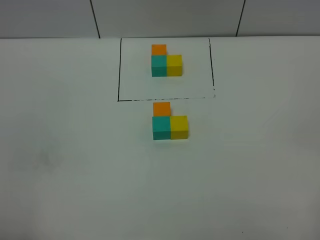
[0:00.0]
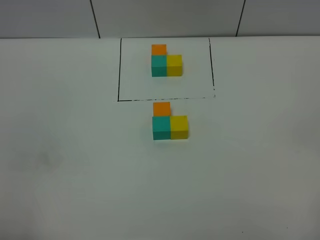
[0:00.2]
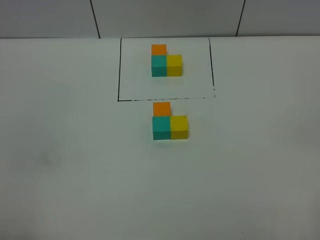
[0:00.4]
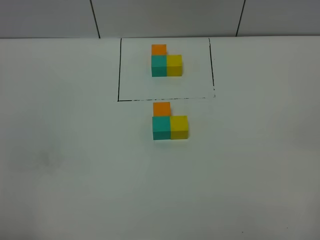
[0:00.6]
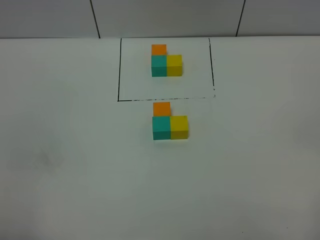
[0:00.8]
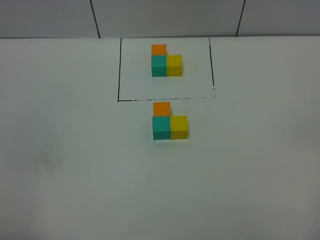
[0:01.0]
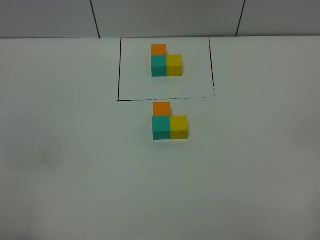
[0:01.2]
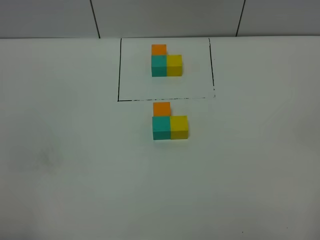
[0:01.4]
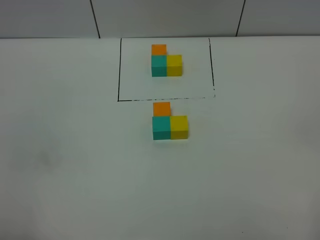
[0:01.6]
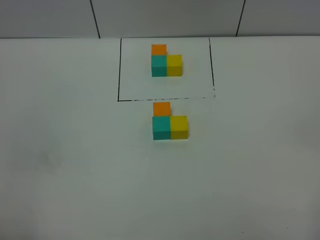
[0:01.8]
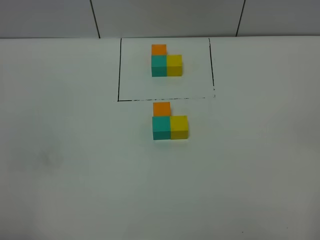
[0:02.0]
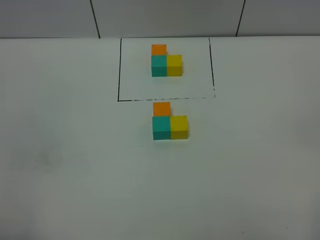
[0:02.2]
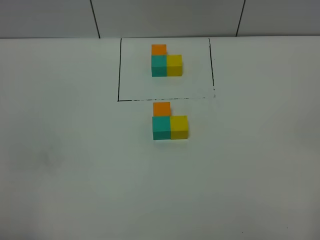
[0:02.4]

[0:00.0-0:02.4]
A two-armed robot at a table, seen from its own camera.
Task of the whole recording: According to the building block template in front, assemble the scattered blocks together.
0:01.2 to 0:02.4: Neither gripper changes place.

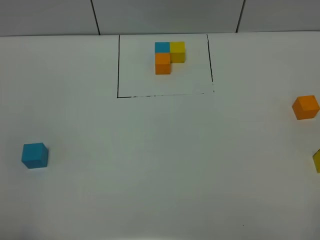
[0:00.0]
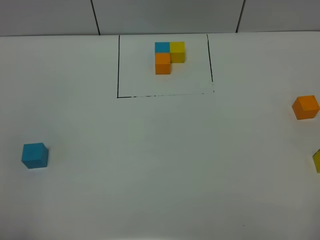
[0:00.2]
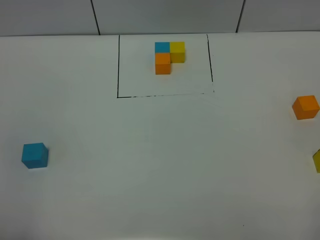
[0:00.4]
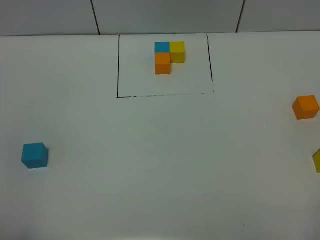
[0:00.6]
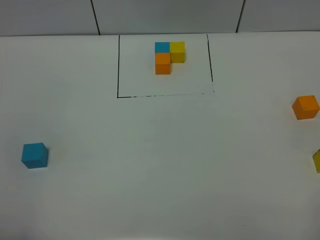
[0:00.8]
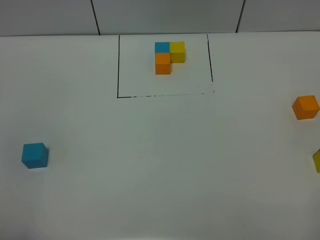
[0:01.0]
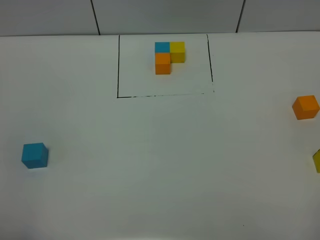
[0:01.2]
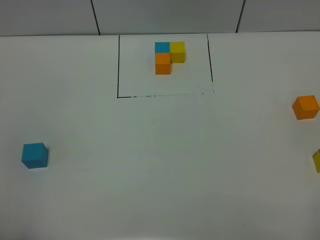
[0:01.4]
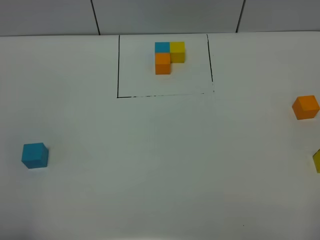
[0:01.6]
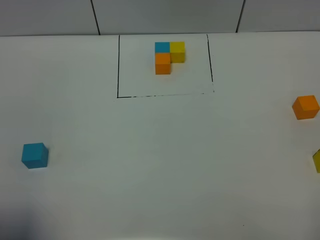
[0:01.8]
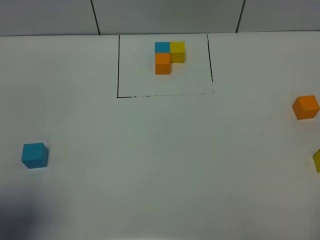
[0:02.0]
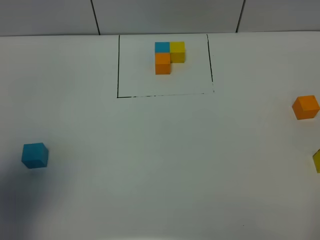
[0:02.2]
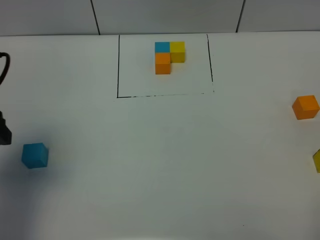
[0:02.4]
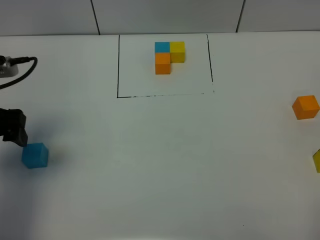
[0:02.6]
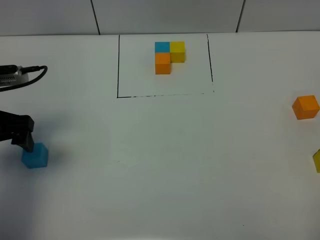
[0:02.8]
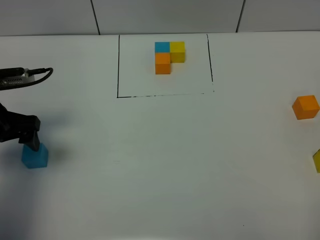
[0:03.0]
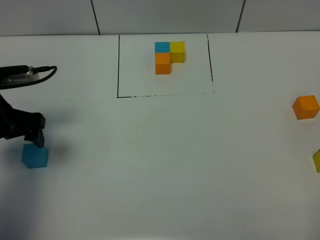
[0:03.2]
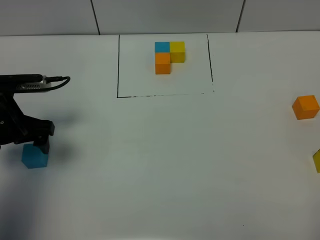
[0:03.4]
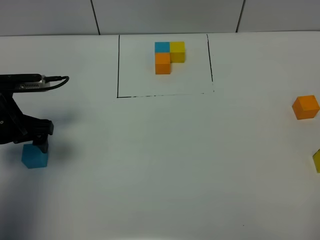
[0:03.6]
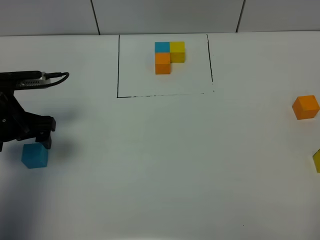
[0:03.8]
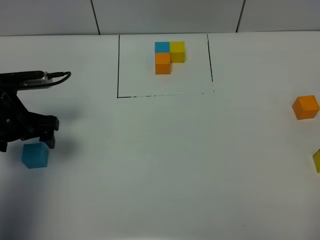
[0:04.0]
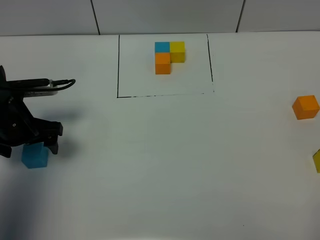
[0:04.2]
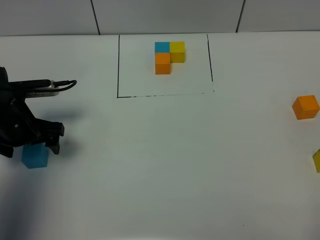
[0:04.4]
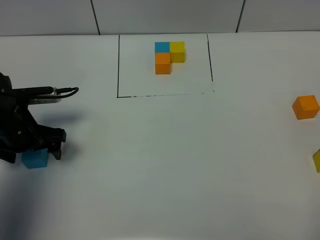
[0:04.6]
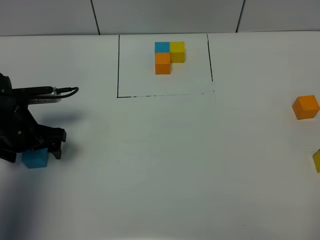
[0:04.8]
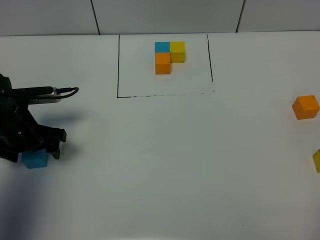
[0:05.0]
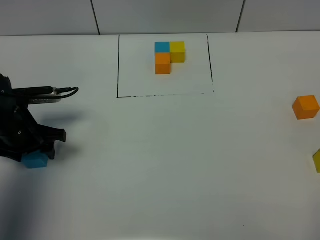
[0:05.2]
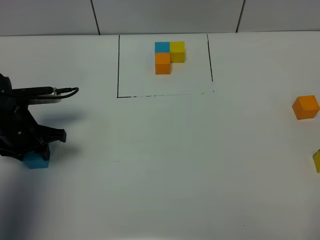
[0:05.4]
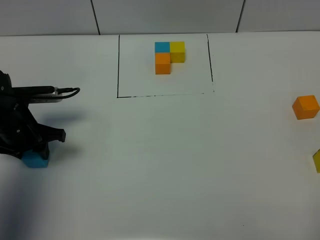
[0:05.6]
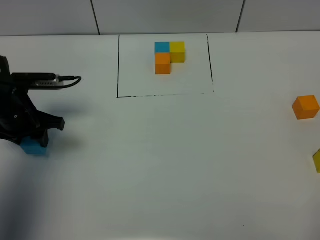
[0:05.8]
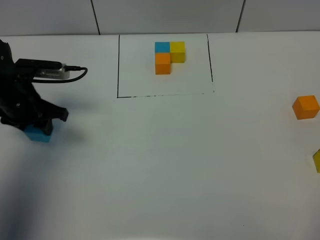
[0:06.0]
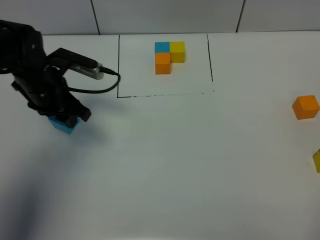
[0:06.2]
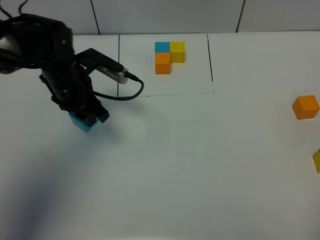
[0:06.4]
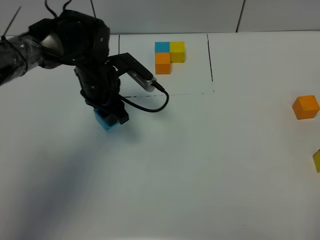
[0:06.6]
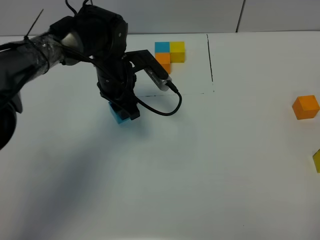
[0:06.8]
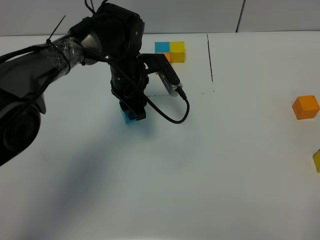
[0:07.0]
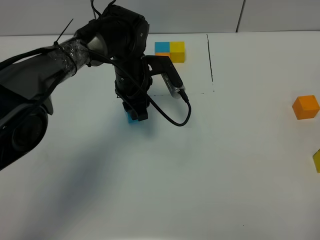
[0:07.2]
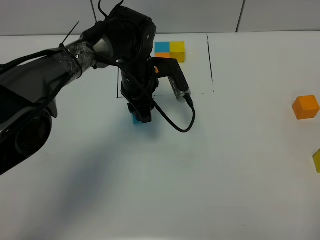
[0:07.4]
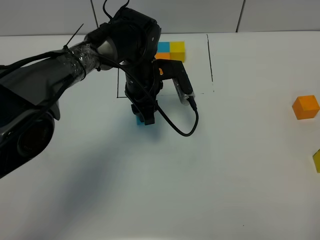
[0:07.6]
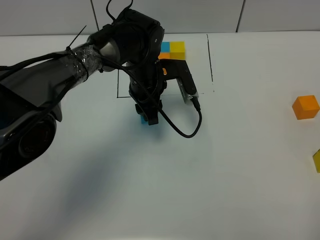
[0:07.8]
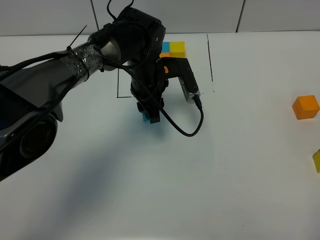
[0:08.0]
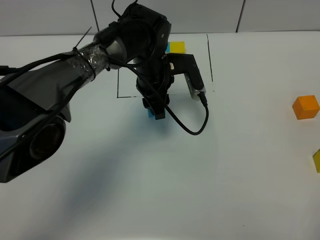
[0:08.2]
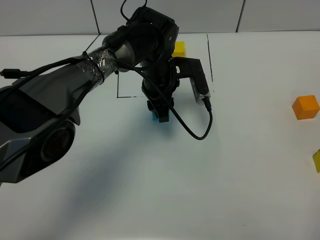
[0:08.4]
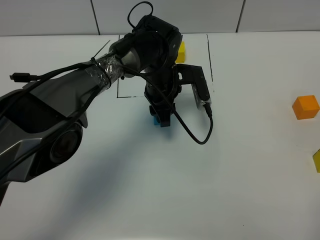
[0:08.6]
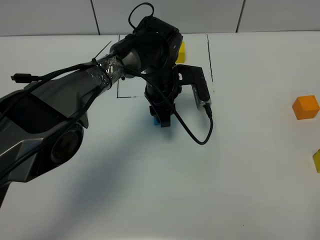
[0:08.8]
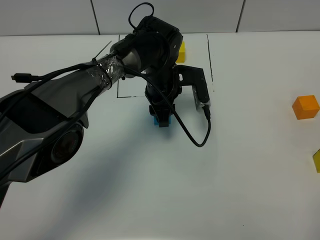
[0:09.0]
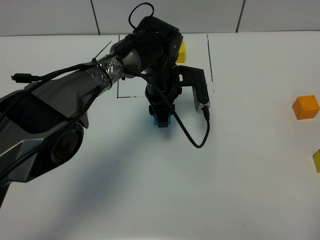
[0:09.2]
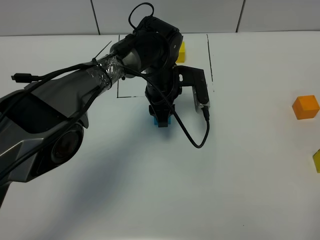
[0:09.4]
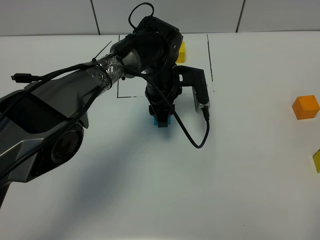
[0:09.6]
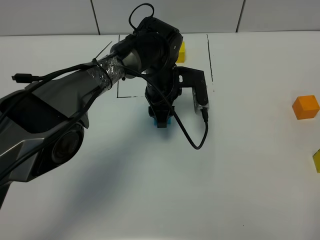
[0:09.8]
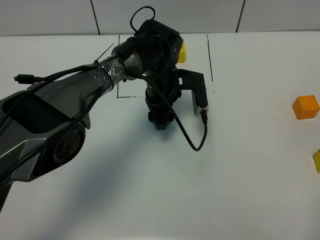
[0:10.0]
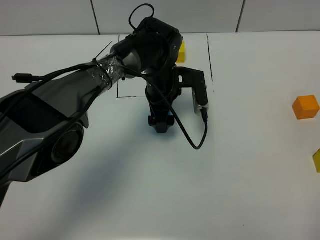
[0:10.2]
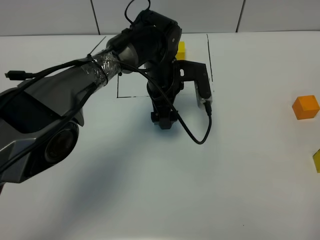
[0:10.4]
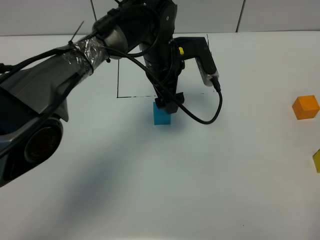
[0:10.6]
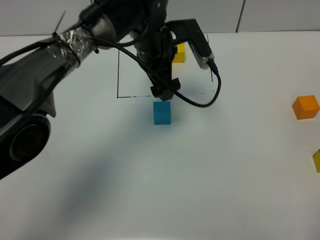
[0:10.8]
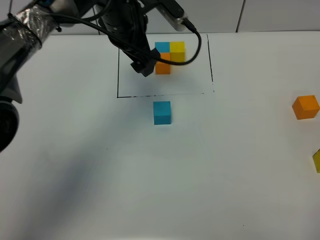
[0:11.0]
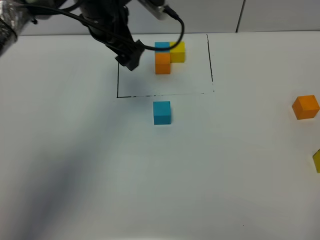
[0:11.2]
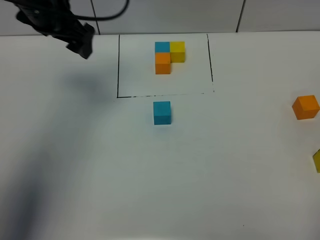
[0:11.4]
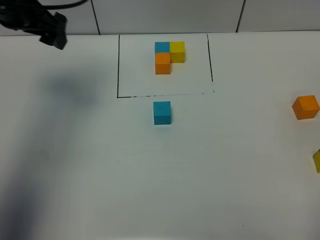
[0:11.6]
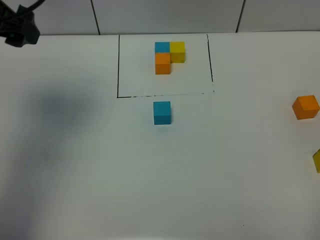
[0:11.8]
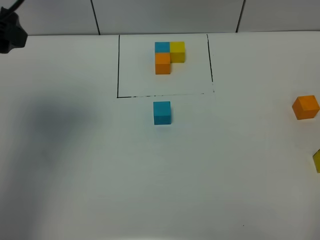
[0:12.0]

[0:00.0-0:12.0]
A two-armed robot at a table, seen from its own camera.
Task of the whole recording: According to the building block template in front, assemble the scattered blocks together.
Step, 0:00.0 to 0:09.8: Put the blue build block in the center of the table.
0:00.0 to 0:01.6: The two grippers keep their place.
0:01.6 to 0:03.0: The left gripper is displaced forward by about 30 cm.
0:03.0 to 0:04.4: The left gripper travels downward by about 5 cm.
0:04.4 to 0:06.0: The left gripper moves some 5 cm, and closes.
0:06.0 to 0:07.6: The left gripper goes about 20 cm to the right.
0:09.0 to 0:10.4: The left gripper opens up.
0:10.4 to 0:12.0: The left gripper shifts approximately 40 cm to the left, upward and backward.

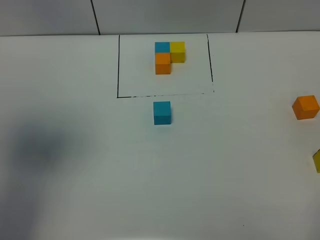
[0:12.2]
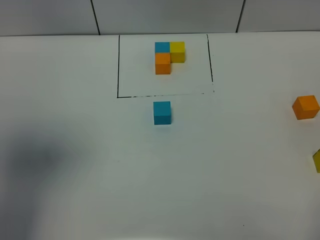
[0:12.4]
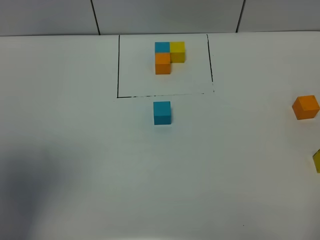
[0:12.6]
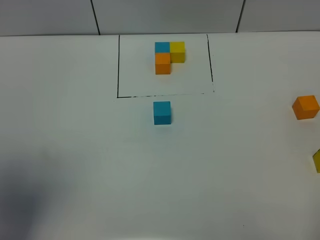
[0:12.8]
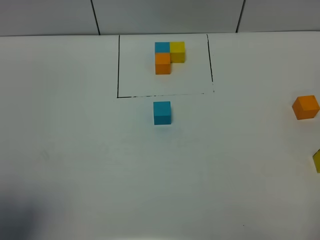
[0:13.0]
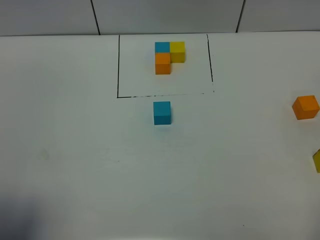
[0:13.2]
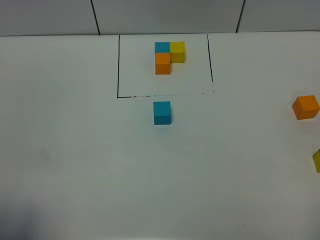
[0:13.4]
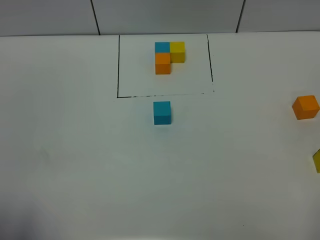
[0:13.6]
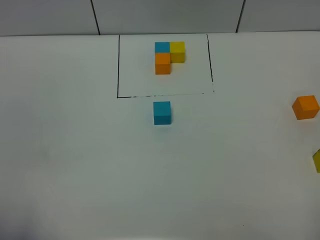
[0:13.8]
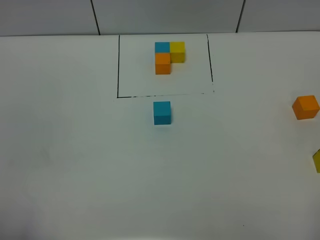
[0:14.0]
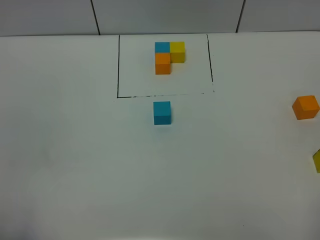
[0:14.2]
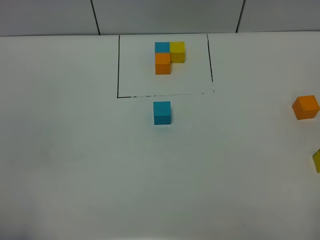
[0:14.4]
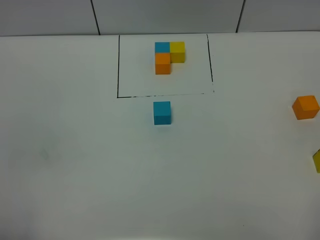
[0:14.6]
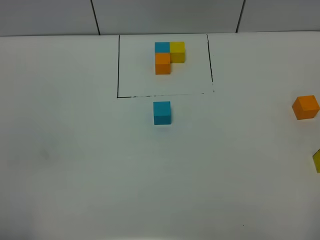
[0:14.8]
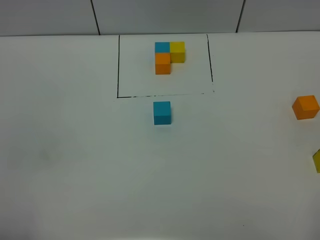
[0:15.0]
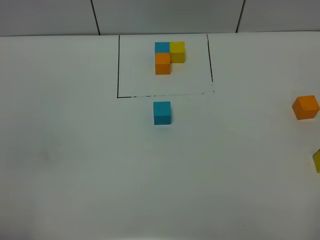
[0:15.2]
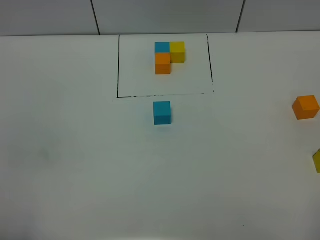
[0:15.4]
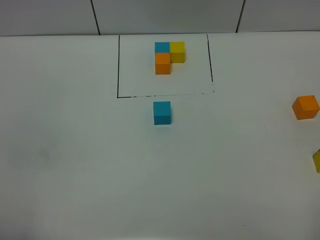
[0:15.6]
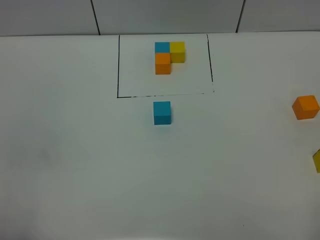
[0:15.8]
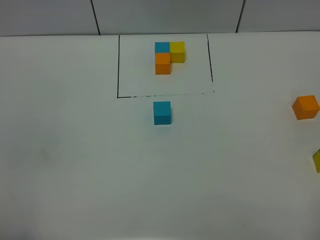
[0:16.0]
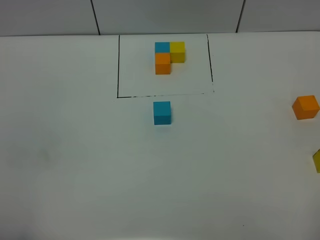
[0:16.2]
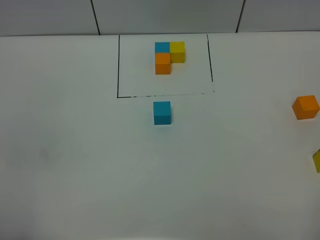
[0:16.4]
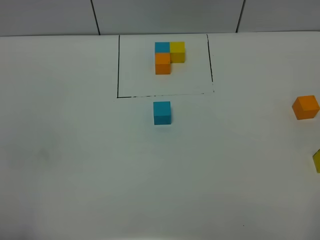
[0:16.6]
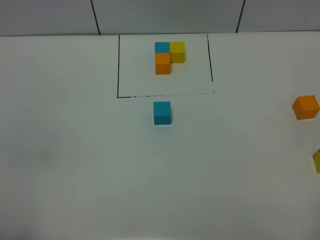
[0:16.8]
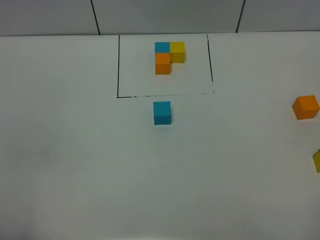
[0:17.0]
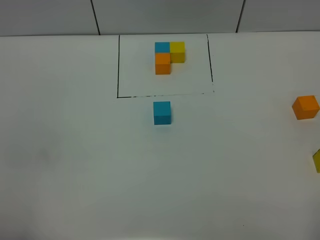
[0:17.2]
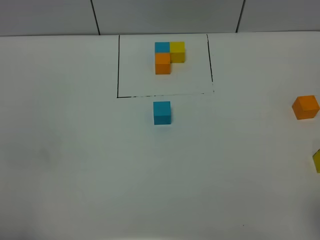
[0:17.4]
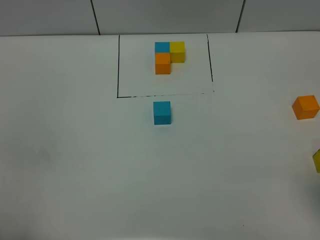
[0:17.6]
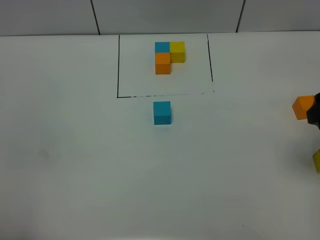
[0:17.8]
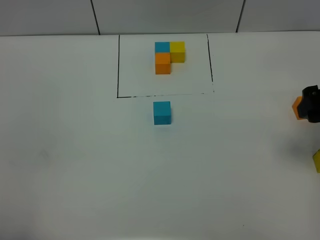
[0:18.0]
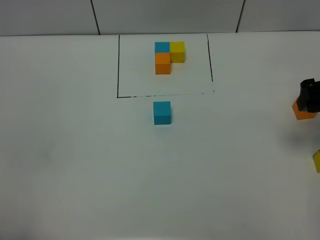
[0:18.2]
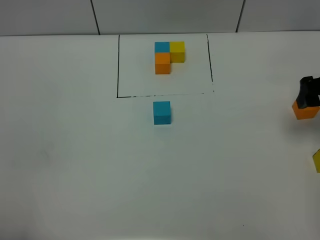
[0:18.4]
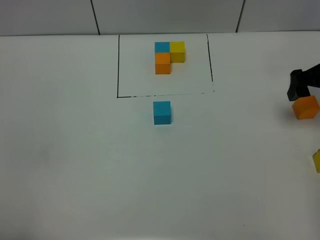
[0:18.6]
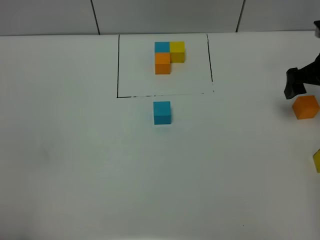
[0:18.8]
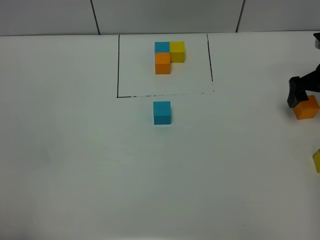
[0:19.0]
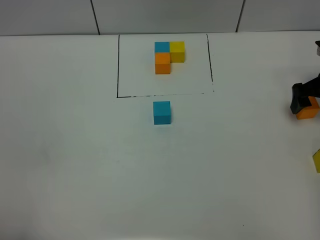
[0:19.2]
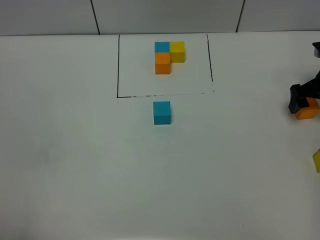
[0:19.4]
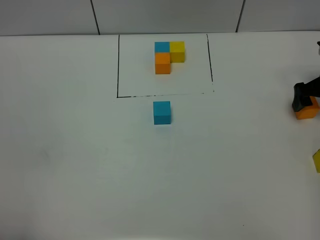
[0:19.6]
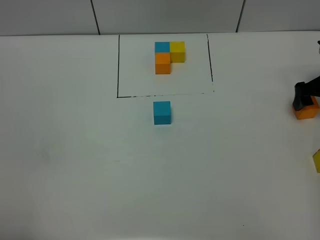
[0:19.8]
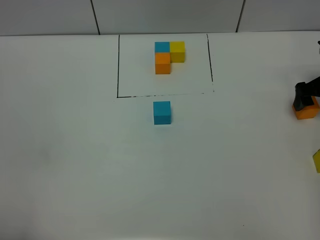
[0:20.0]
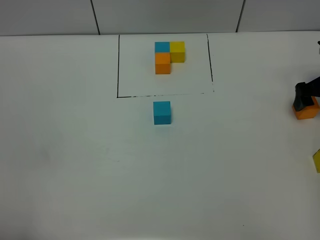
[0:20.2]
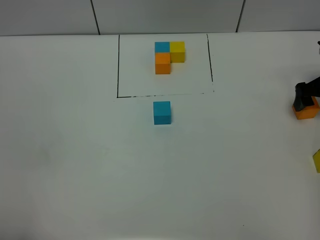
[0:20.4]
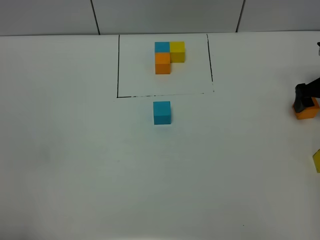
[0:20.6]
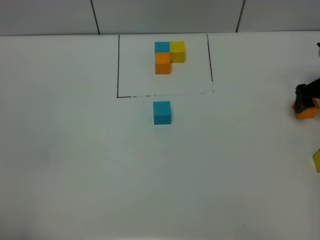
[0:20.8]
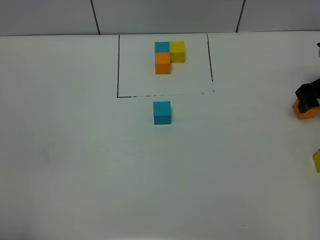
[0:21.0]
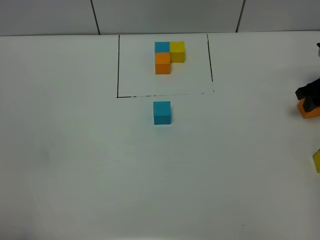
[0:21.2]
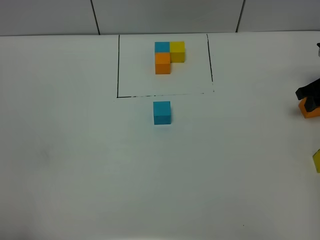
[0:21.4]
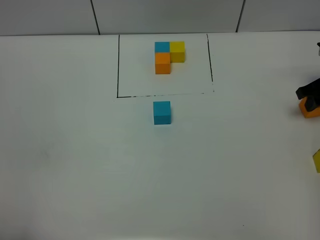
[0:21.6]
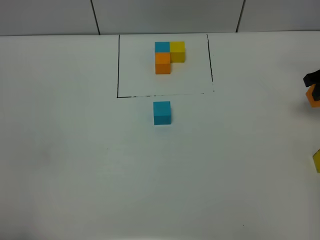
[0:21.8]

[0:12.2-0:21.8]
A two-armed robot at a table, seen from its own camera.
Task of the whole recording: According to the building block template in front, assemble the scattered blocks together.
0:12.2 to 0:13.8: The left gripper shifts about 25 cm backward and downward.
0:15.4 to 0:17.0: Both grippers stay put.
0:17.0 to 0:18.6: The right gripper heads forward, covering some 35 cm.
0:18.6 to 0:20.2: The right gripper moves downward, some 5 cm.
0:20.2 to 0:21.8: The right gripper heads upward, covering roughly 5 cm, and closes its fingers.
